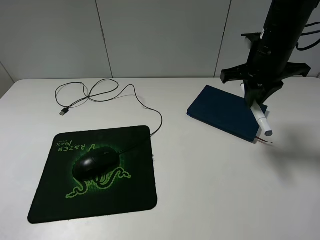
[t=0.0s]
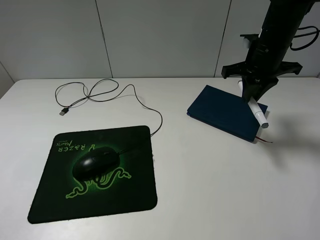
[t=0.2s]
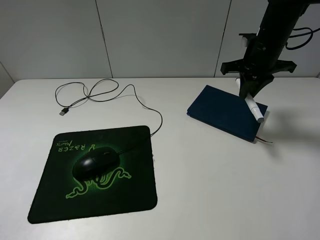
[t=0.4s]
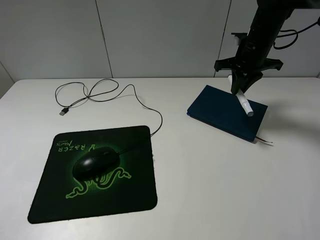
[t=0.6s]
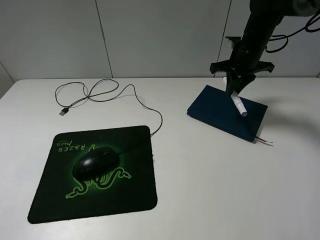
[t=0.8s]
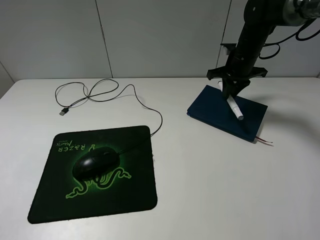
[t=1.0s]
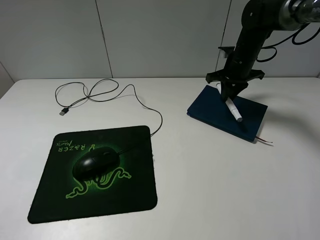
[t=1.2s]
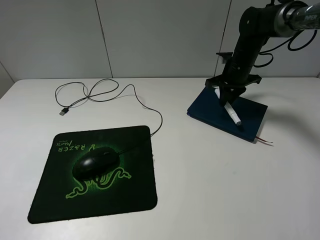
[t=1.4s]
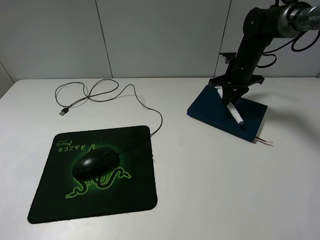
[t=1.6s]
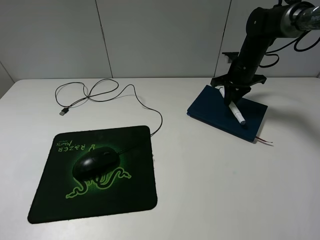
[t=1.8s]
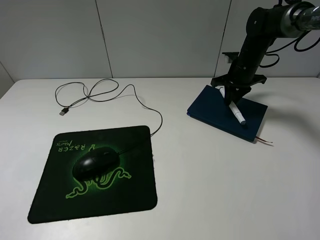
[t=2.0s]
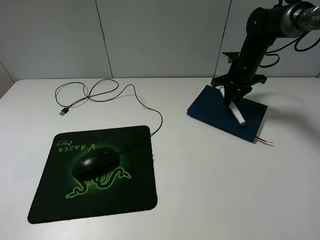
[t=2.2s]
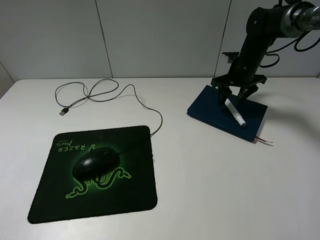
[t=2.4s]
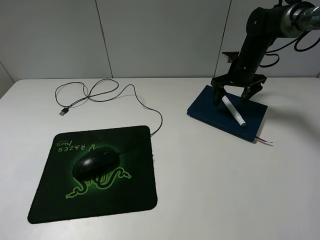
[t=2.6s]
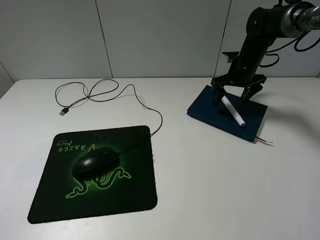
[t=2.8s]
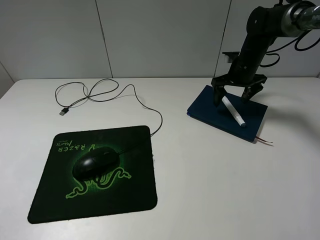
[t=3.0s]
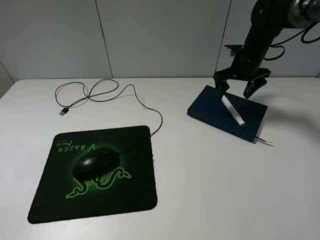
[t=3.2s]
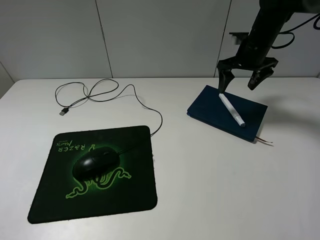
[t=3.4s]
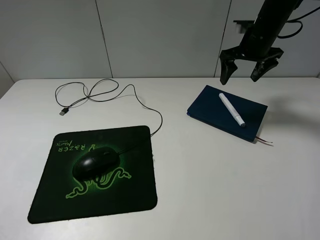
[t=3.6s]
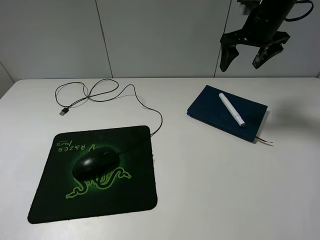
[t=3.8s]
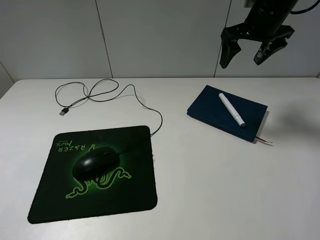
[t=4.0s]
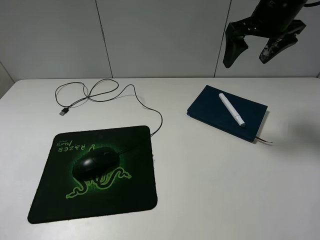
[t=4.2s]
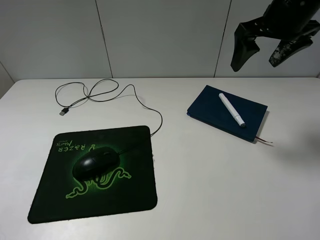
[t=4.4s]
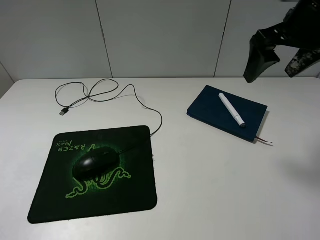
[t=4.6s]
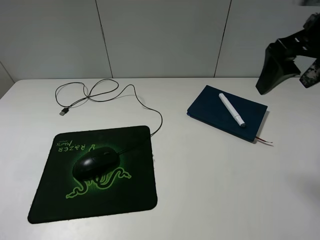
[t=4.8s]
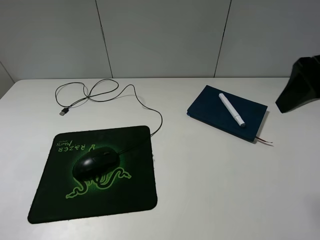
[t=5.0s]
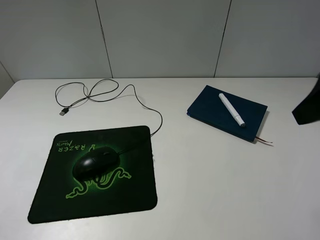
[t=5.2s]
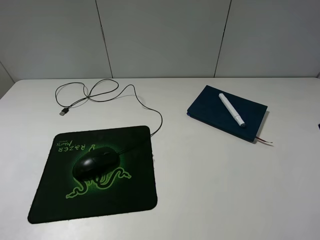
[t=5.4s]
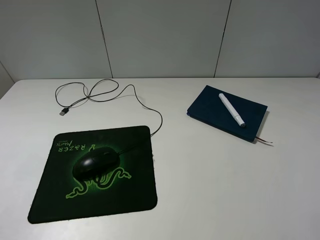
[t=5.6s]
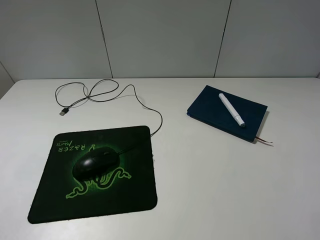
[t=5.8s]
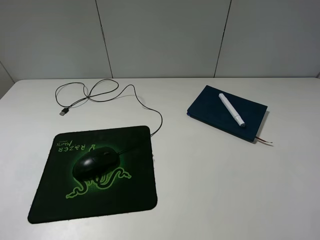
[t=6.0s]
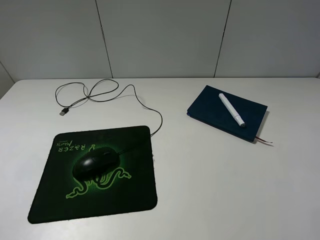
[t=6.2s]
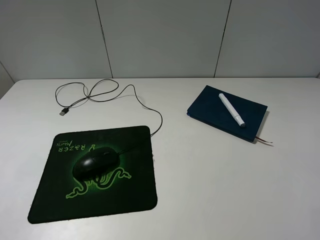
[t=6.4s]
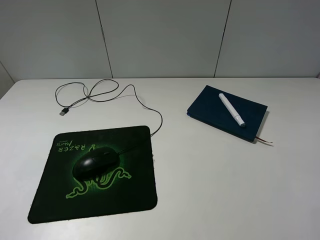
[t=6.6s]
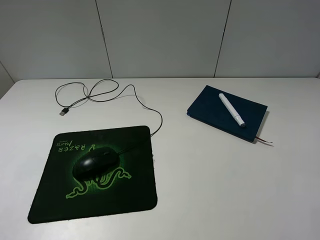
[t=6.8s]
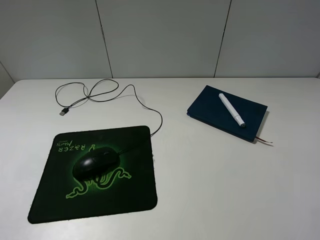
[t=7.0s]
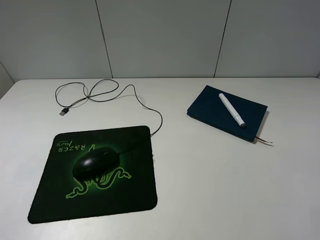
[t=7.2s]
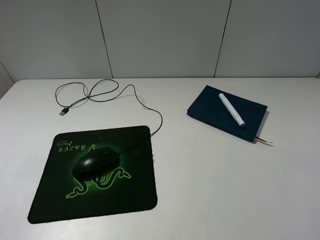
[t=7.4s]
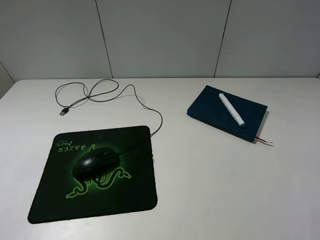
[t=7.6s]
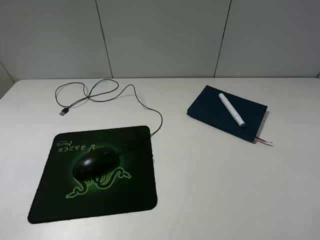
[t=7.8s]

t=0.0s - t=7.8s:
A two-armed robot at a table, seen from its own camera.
Step, t=0.0s - t=2.8s: Place the marker on the notebook with the right gripper.
t=0.0s - t=1.6s: The right gripper goes approximately 15 cm forward and downward.
t=1.6s - t=3.2s: The right gripper opens up.
t=3.2s - t=4.6s: The right gripper moves backward and upward, about 25 cm.
t=4.6s - t=6.2s: The right gripper travels backward by roughly 25 cm.
